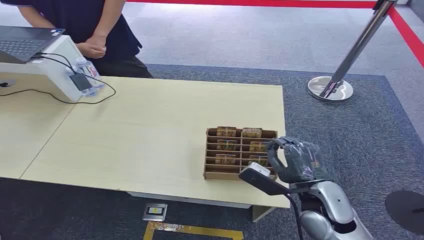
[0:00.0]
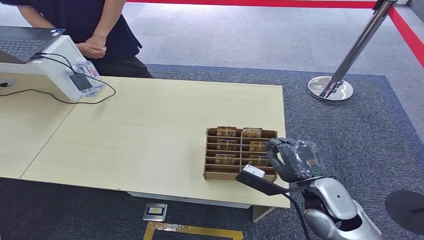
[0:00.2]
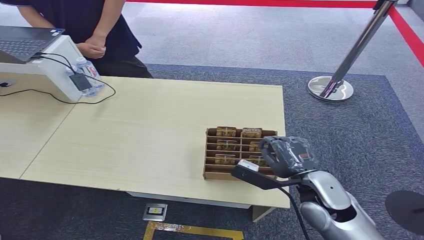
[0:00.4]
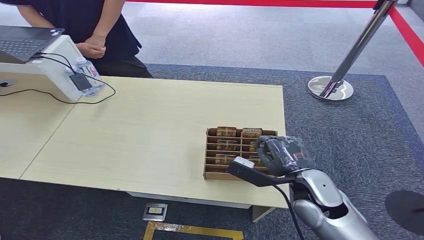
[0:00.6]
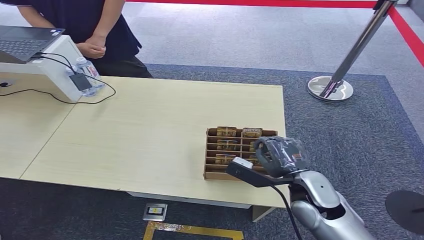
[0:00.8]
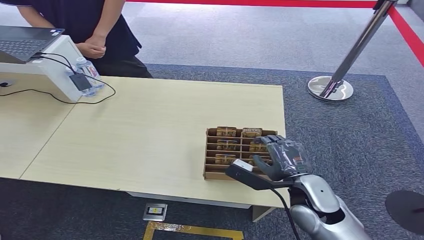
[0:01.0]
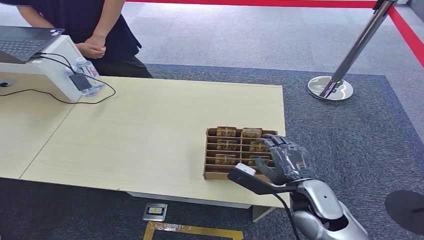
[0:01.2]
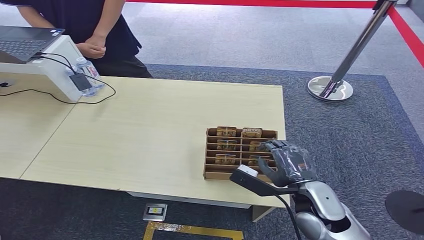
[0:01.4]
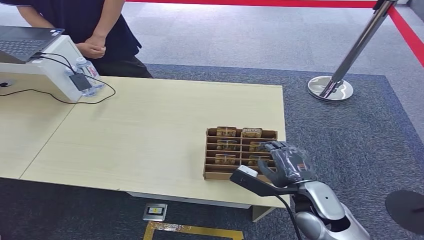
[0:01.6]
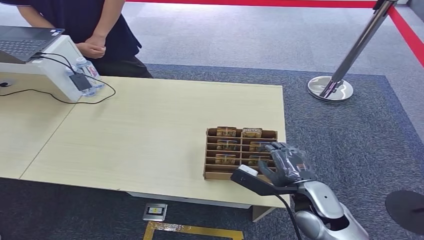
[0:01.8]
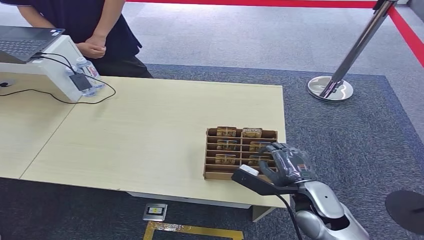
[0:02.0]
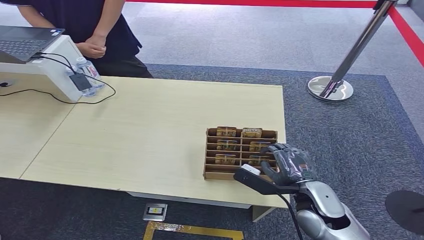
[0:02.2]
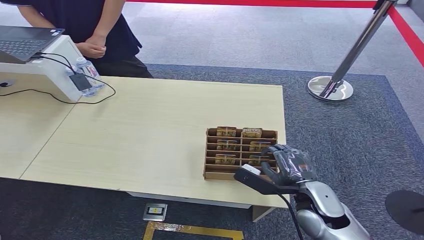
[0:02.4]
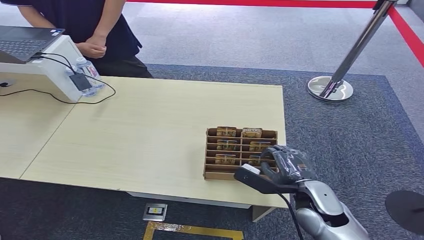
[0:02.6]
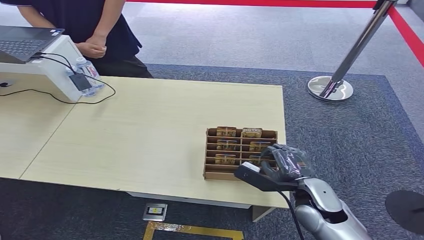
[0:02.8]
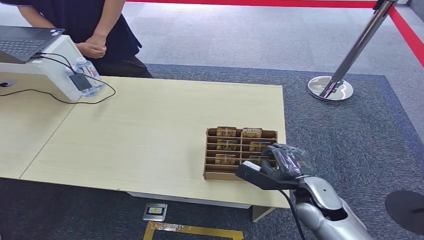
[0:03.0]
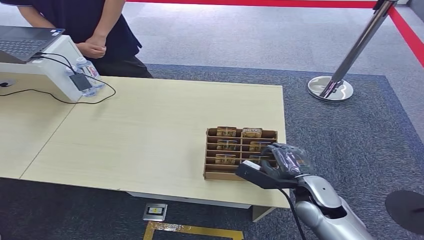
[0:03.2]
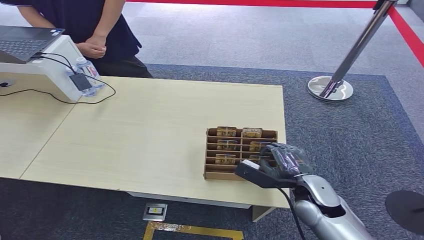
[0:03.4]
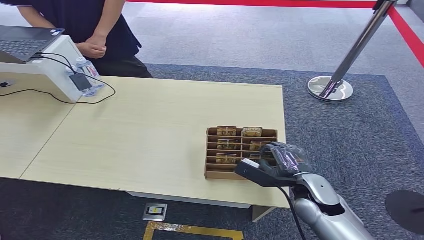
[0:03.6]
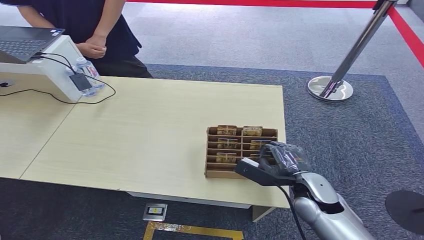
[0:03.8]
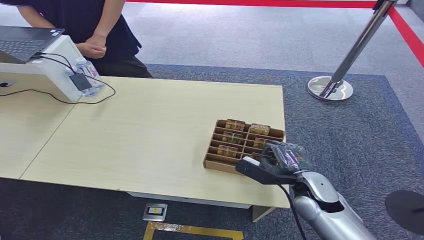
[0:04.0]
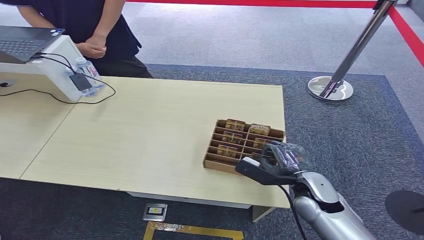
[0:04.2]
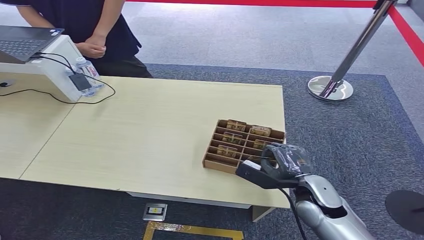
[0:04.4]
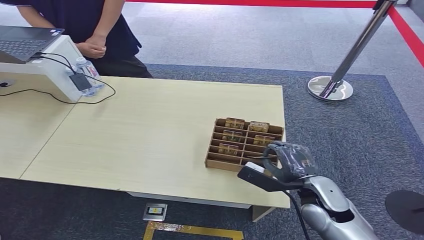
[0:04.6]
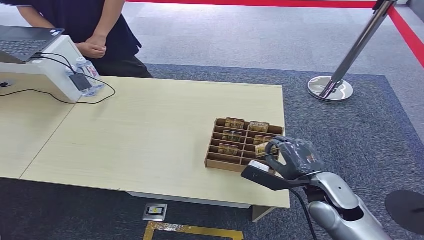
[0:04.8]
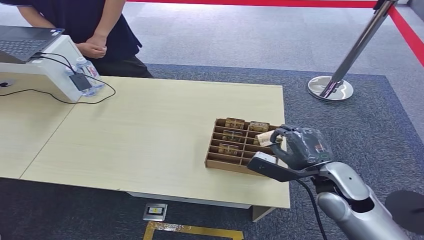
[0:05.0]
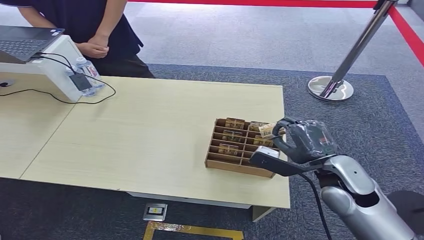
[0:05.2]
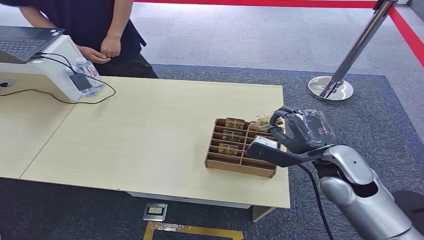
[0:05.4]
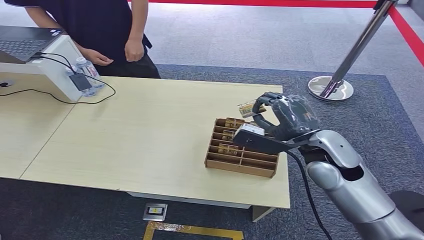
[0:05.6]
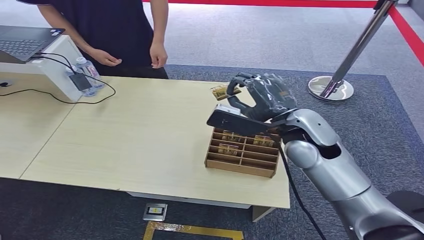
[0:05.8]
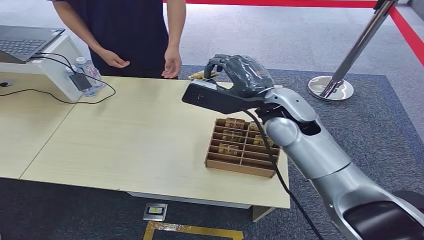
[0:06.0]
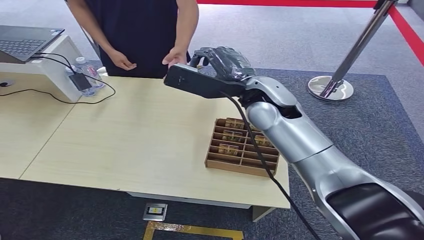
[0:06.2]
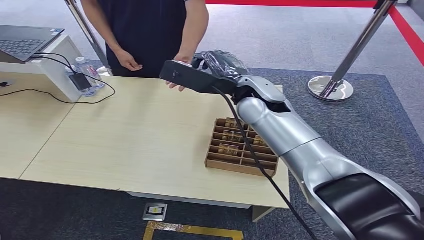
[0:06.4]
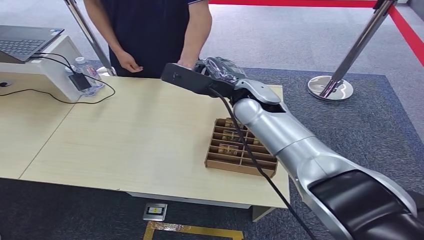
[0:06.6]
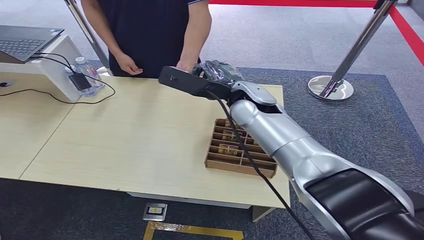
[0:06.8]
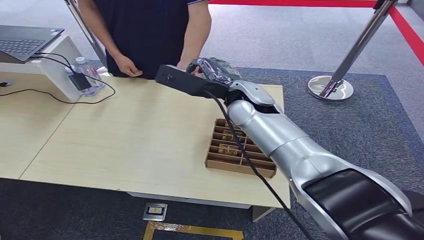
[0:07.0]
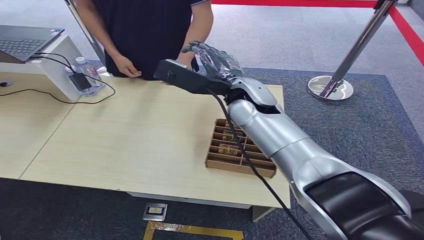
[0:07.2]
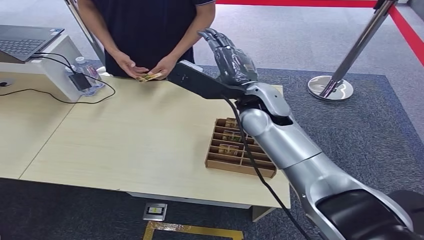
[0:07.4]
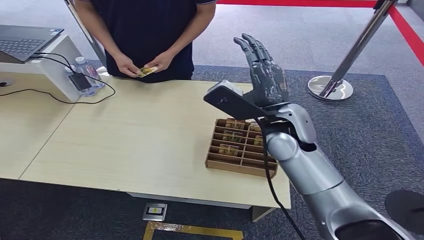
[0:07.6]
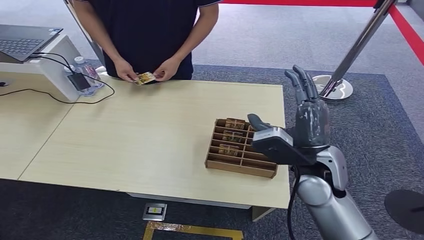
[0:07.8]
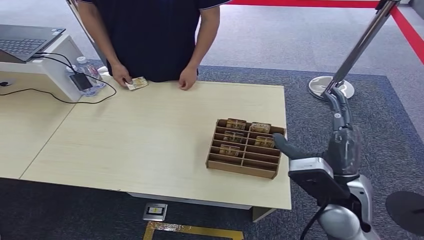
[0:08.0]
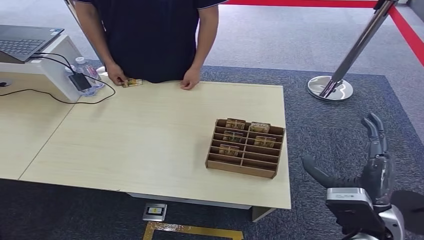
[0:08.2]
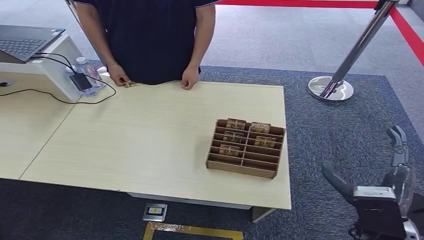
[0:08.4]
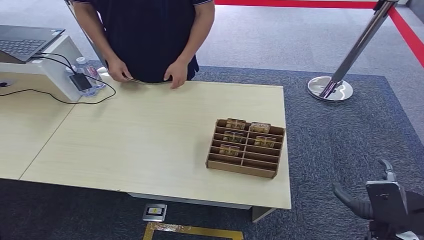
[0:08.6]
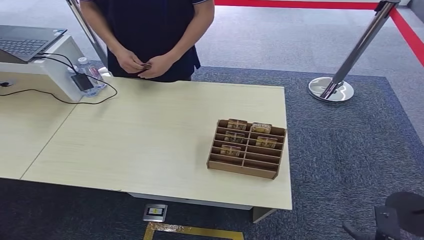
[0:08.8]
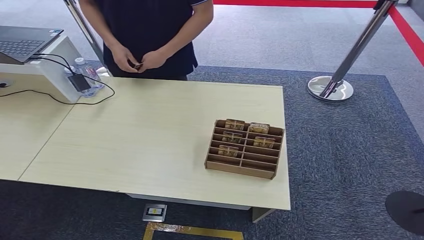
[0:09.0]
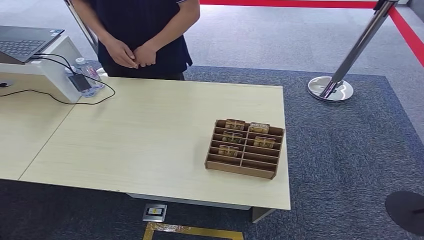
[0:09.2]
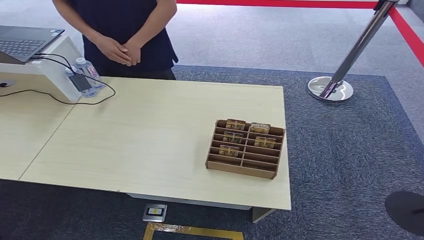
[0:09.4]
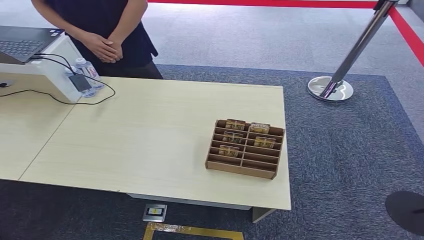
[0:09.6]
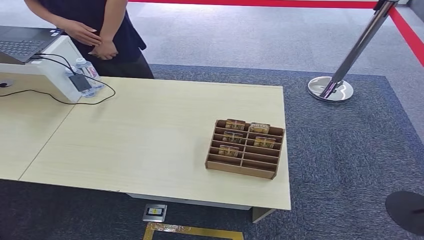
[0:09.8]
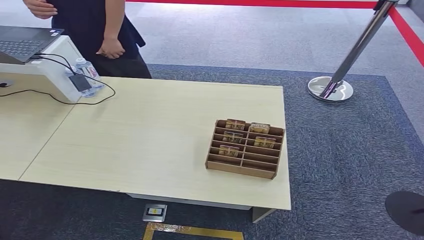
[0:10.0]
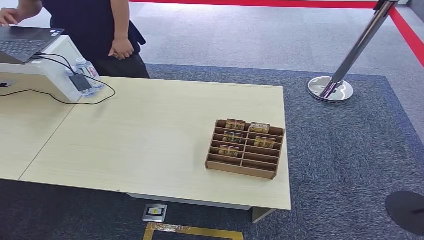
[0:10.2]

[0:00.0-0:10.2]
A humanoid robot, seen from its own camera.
Step, 0:00.0 to 0:05.6: Pick up the room card from the card holder.
Step, 0:05.8 to 0:10.2: Hand the room card to the target.
0:01.4 to 0:04.4: There are only small adjustments of the hands.
0:08.8 to 0:10.2: The right hand heads to the left, backward and downward, covering some 20 cm.
